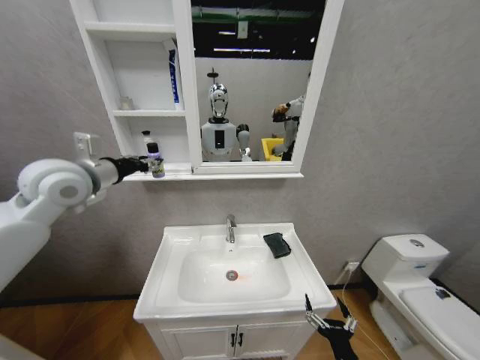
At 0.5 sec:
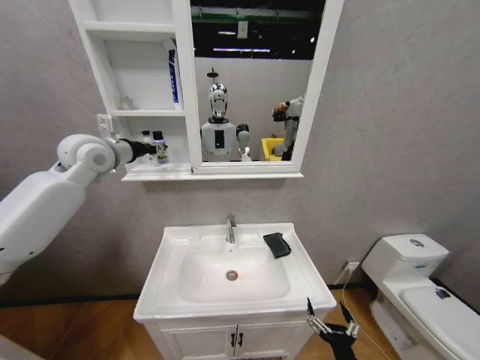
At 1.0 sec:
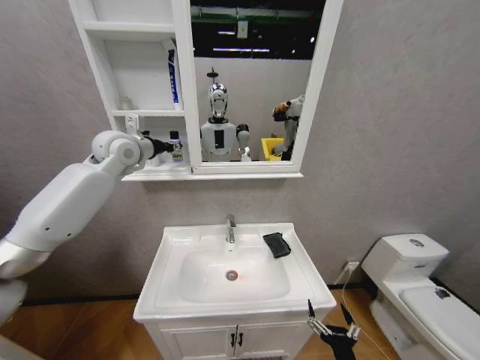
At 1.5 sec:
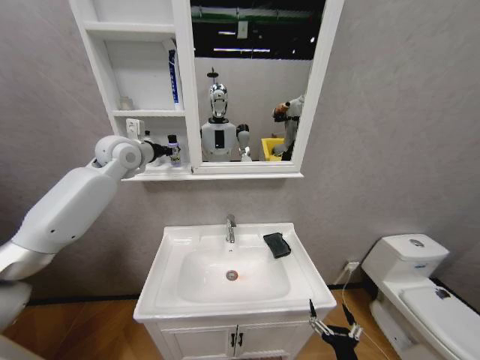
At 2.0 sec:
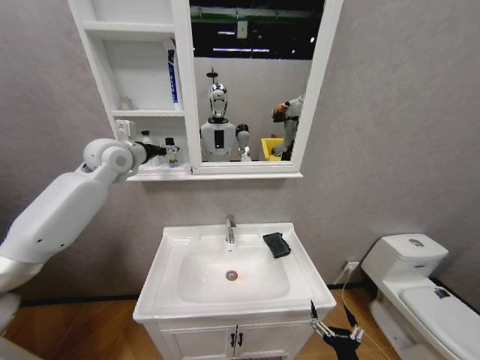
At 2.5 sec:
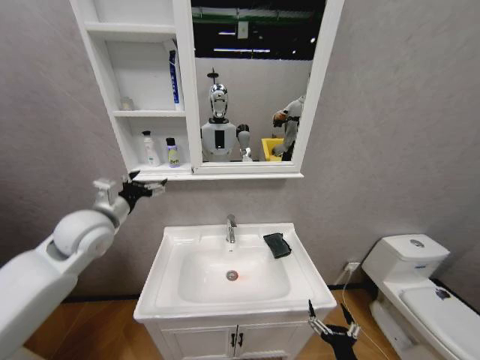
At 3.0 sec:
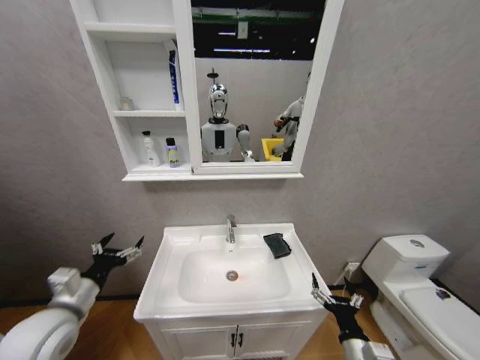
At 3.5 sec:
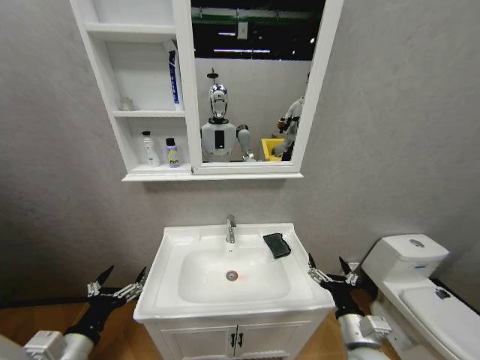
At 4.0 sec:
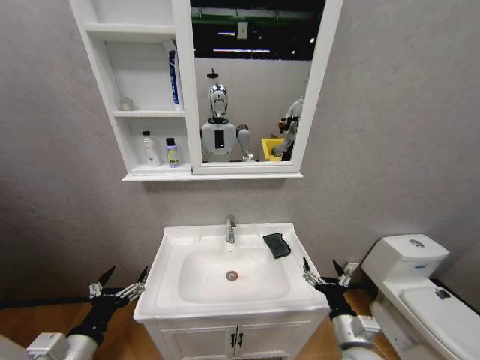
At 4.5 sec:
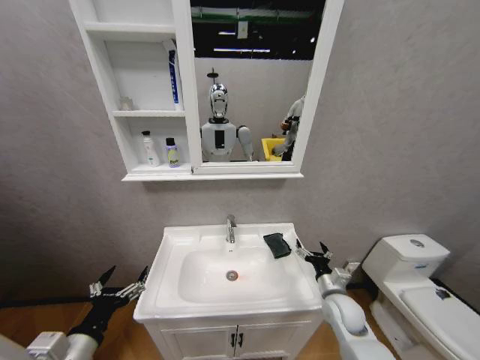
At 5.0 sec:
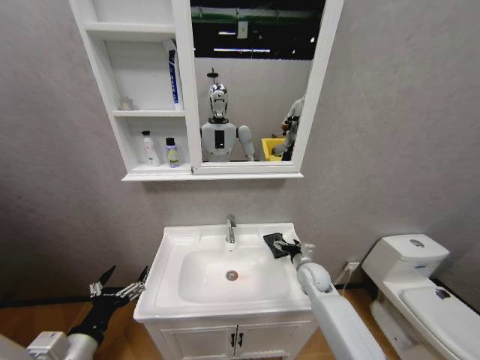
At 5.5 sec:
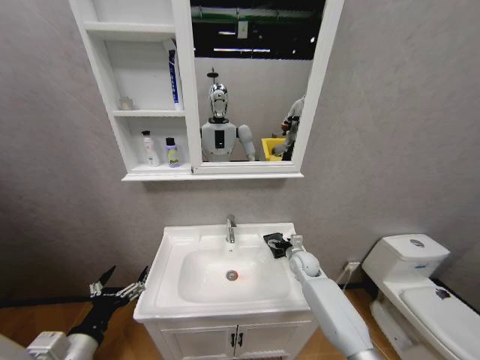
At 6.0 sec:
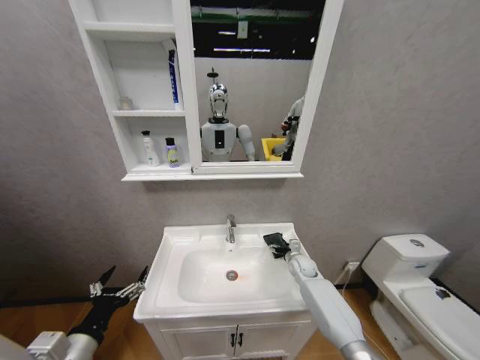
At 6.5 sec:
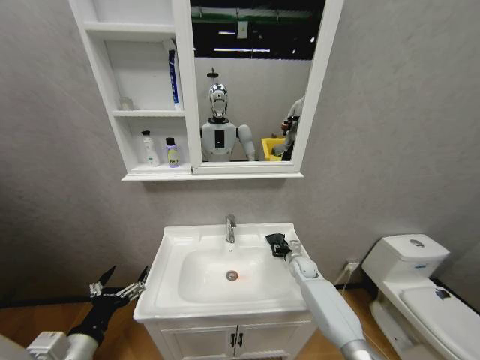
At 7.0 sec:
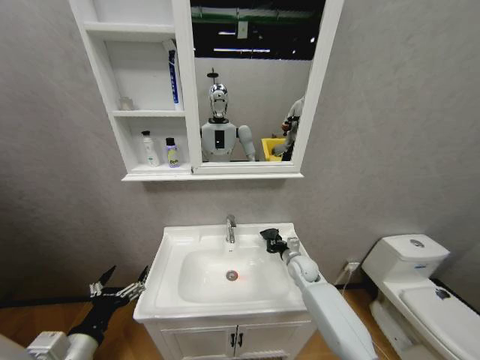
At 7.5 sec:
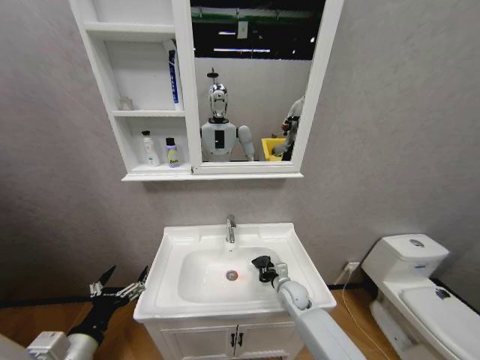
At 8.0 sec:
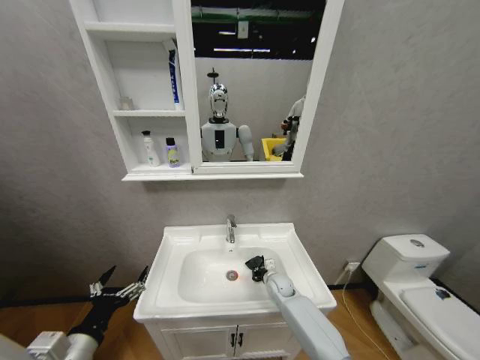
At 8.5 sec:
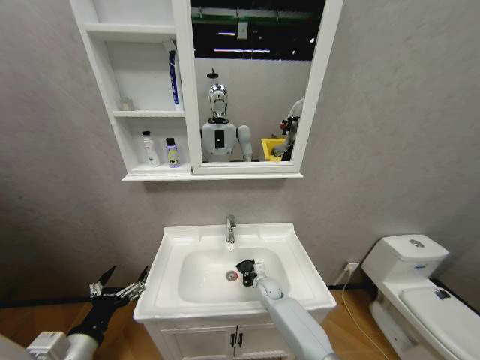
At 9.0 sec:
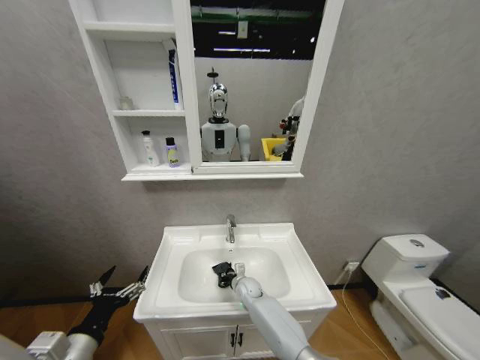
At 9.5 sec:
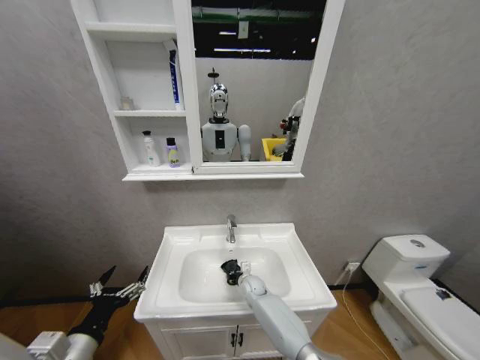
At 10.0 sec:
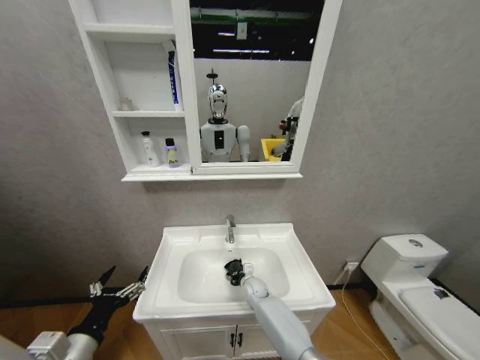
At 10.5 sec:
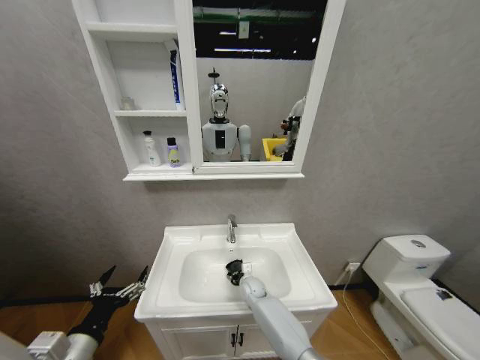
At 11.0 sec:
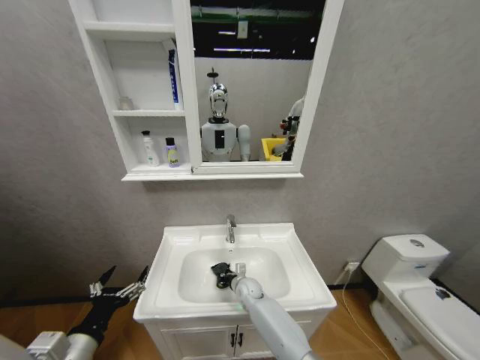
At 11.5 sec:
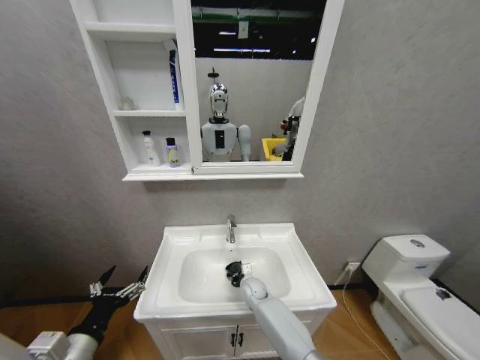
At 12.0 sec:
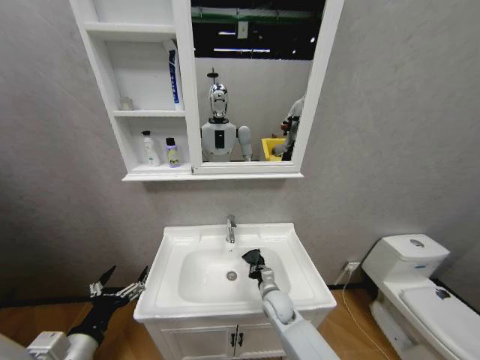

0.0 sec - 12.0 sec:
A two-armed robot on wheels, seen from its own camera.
Task of the whole recording: Move facial cleanser and shampoo from washbasin to cabinet, then wipe washbasin with towel.
0.0 sec - 2.0 sec: The left gripper goes roughly 10 cm forward, and opens.
2.0 sec - 4.0 sec: The left gripper moves backward and downward, roughly 50 cm, while the right gripper is displaced forward and upward by about 10 cm.
4.0 sec - 6.0 sec: The right gripper travels forward by some 30 cm.
6.0 sec - 8.0 sec: The right gripper moves to the left and downward, roughly 10 cm, and closes up.
8.0 sec - 10.0 sec: The right gripper moves to the left, roughly 10 cm.
10.0 sec - 12.0 sec: The right gripper heads backward and upward, covering some 10 cm.

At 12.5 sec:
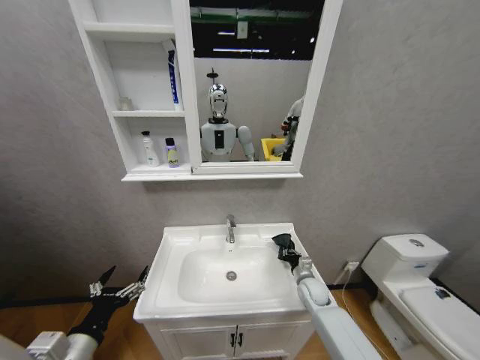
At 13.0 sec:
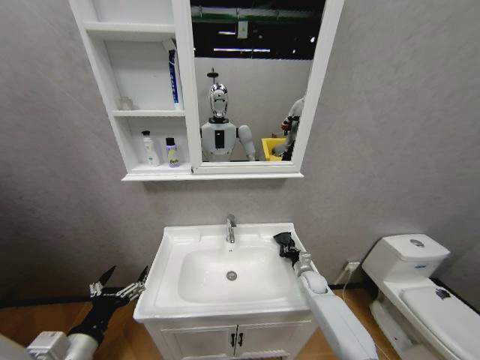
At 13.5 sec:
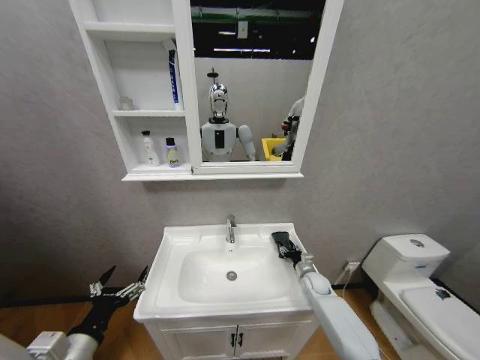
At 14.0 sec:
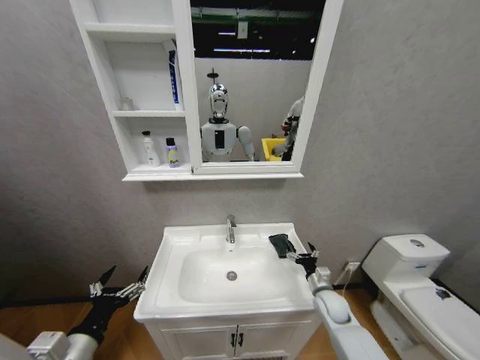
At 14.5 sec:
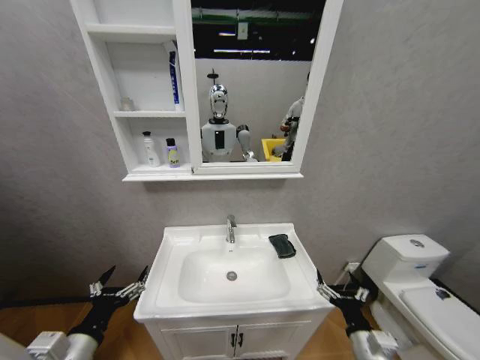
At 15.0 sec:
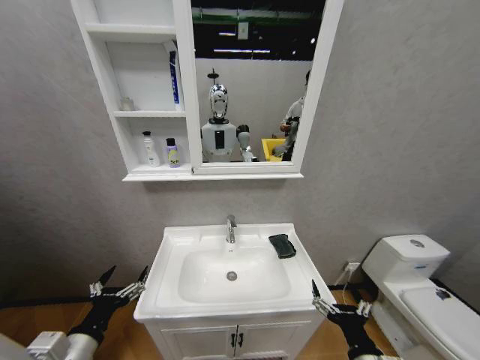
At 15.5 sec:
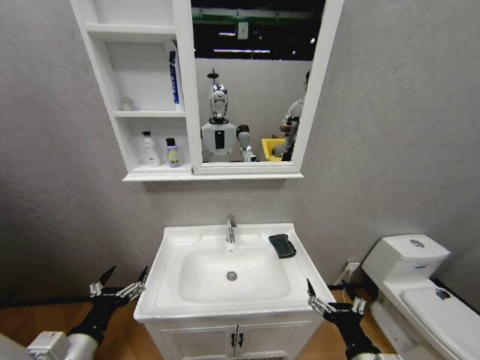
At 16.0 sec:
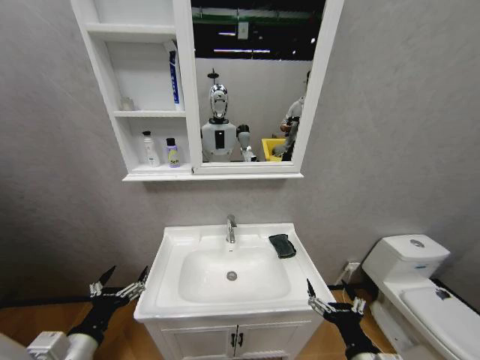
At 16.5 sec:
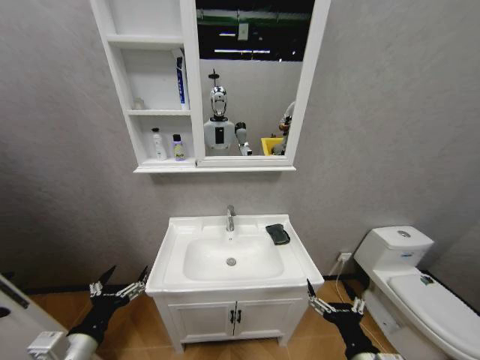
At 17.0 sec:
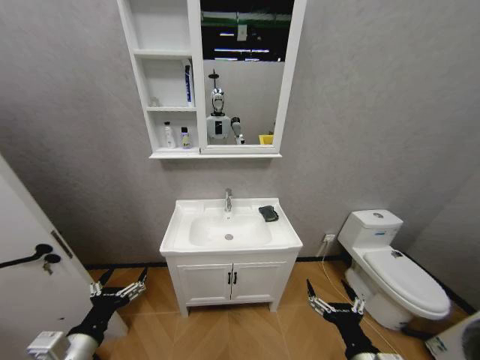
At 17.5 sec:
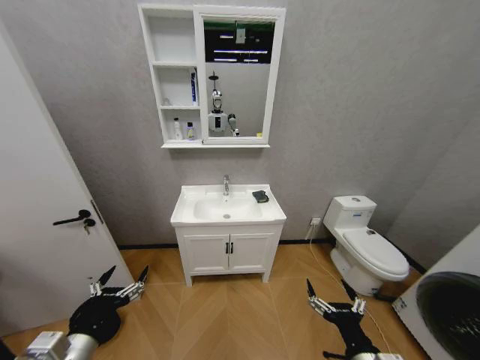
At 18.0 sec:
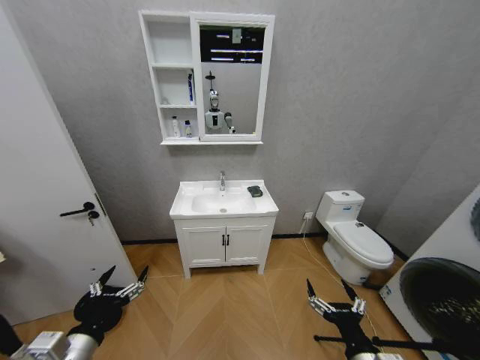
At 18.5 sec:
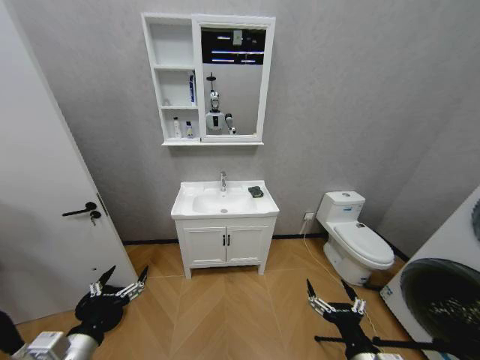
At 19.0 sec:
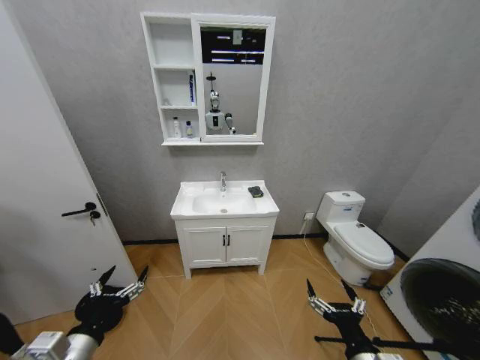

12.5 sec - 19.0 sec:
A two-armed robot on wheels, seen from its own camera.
Task of the whole recording: Move facial cleanser and shampoo from washbasin to cabinet, then wipe washbasin with towel.
12.5 sec - 14.5 sec: The right gripper heads backward, covering roughly 25 cm, and opens.
14.5 sec - 17.0 sec: The right gripper is displaced backward, upward and to the left by approximately 10 cm.
